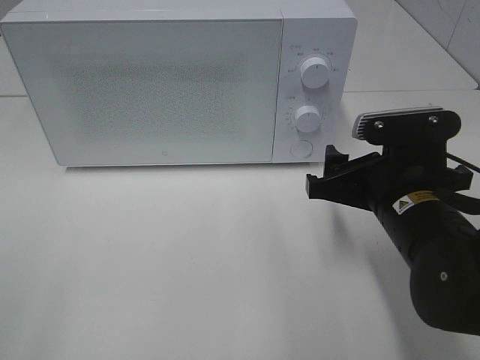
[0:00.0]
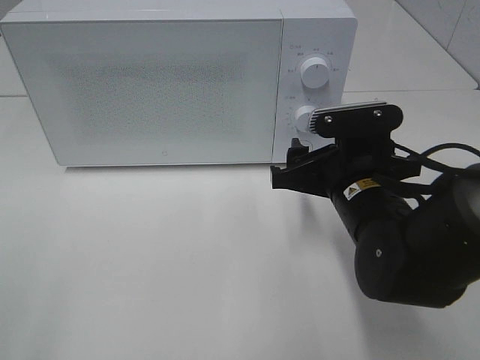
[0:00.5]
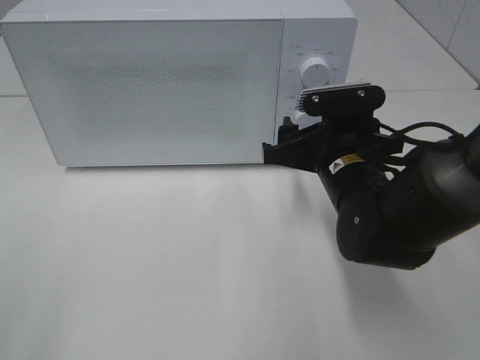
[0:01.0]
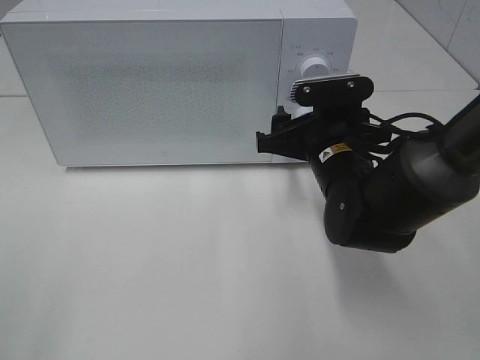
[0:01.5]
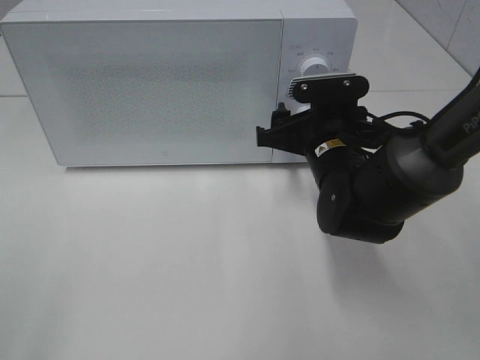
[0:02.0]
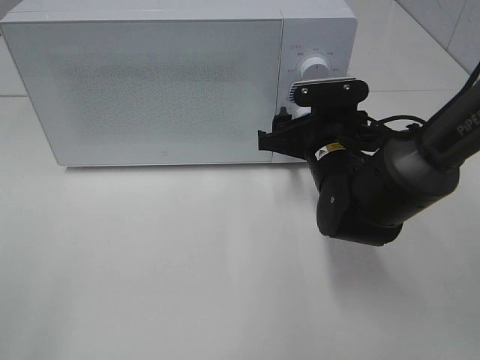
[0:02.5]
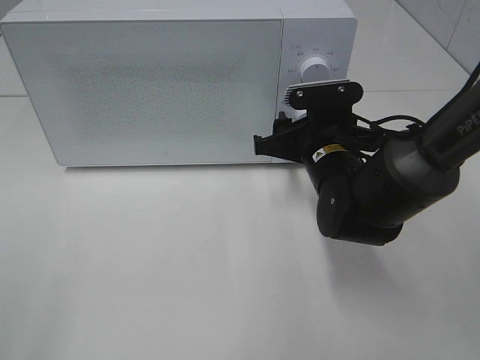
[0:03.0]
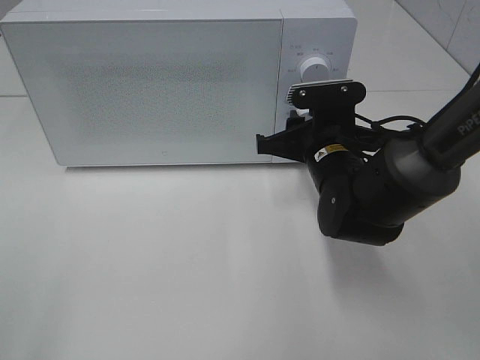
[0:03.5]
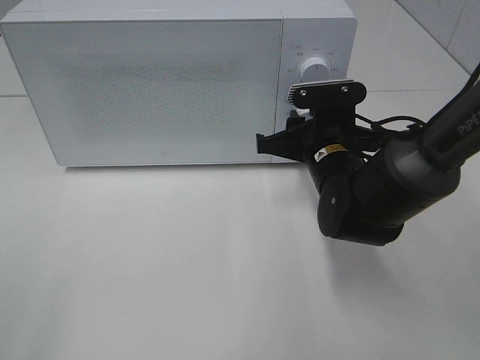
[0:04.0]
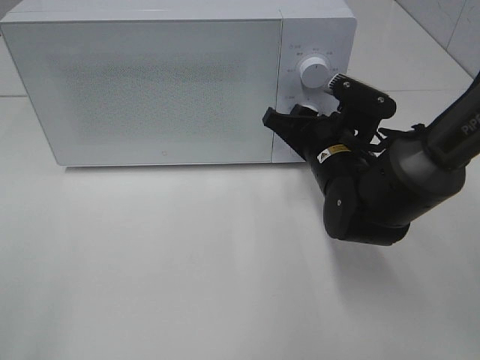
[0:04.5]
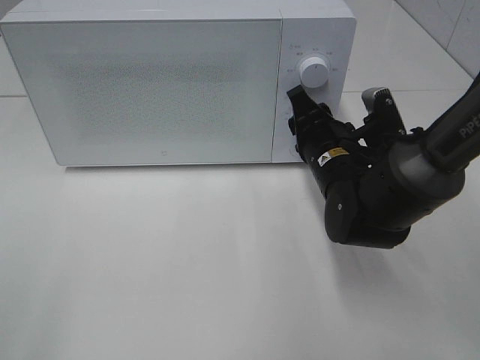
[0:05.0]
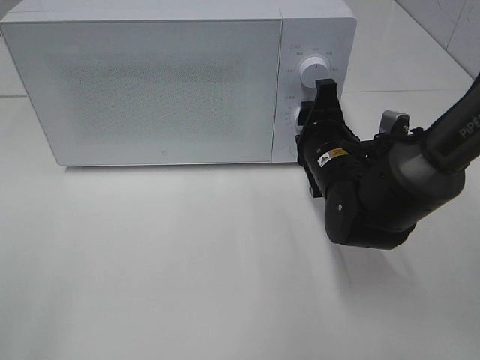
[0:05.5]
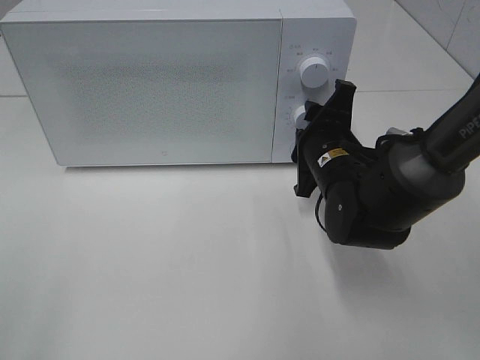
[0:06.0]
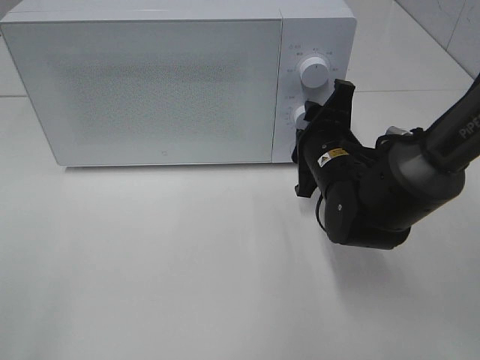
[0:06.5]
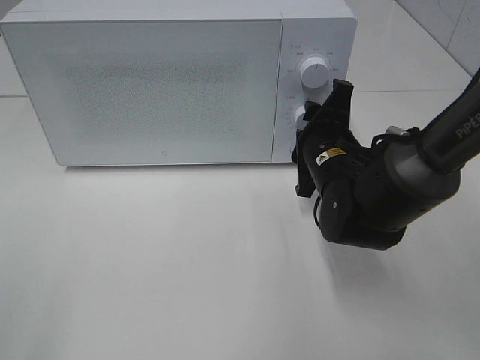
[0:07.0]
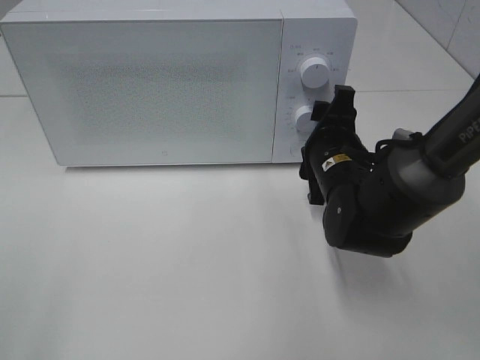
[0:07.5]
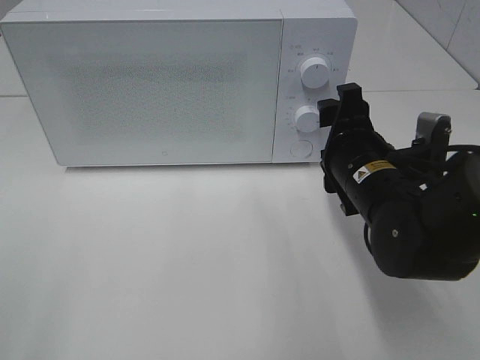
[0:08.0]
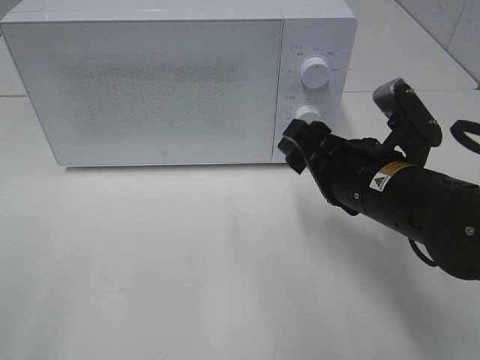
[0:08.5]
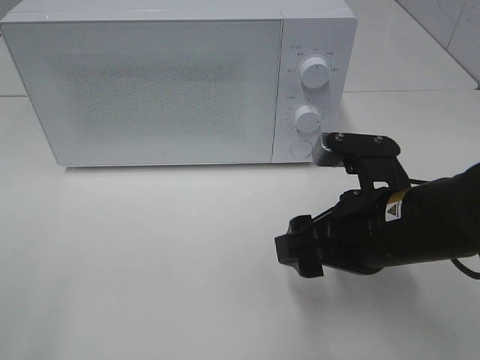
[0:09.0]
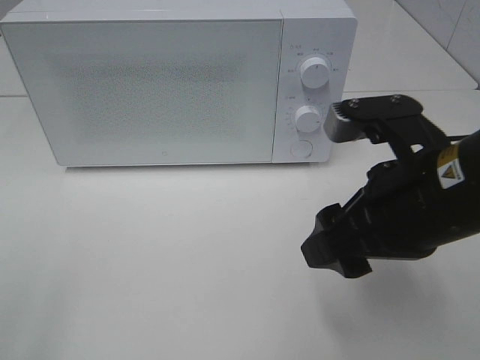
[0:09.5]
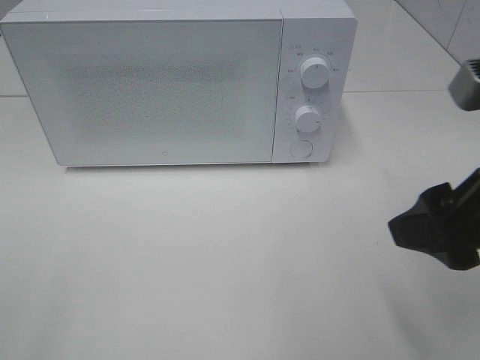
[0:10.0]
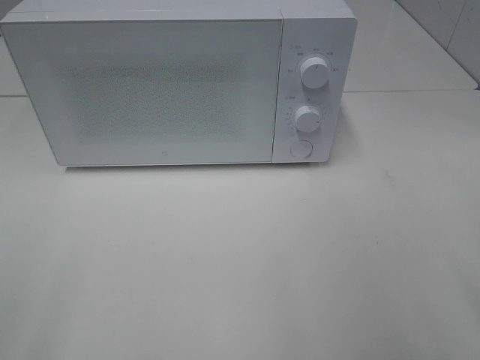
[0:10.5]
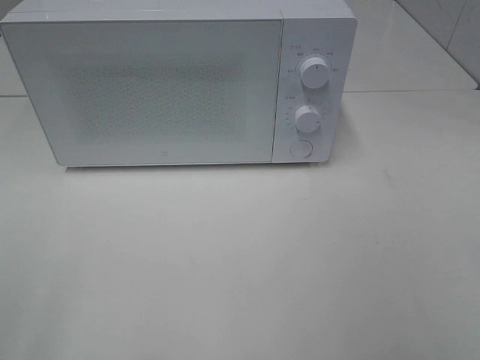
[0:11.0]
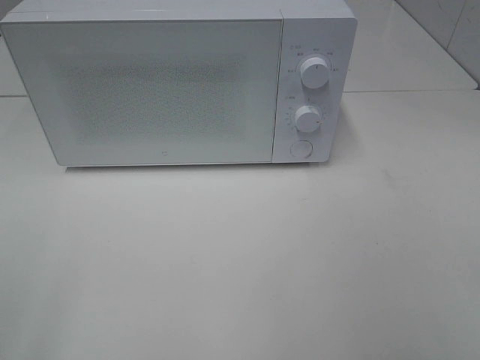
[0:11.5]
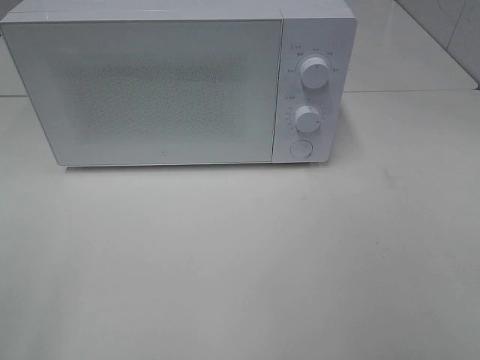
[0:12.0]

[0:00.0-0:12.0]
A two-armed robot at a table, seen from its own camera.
Task of the whole recording: Heat the burger.
Step, 0.0 to 7.5 s: Right hand: twist timer button.
0.0 to 2.0 s: The right gripper goes some 10 cm forward.
2.0 to 4.0 s: The right gripper closes.
6.0 to 8.0 s: The right gripper heads backward, covering approximately 5 cm.
8.0 to 10.0 s: The right gripper shifts approximately 20 cm upward, backward and to the right.
10.0 to 12.0 s: The right gripper shifts roughly 15 cm backward and to the right.

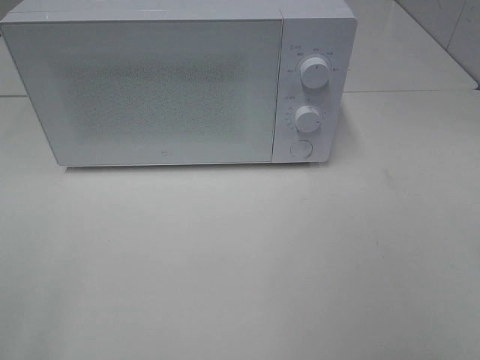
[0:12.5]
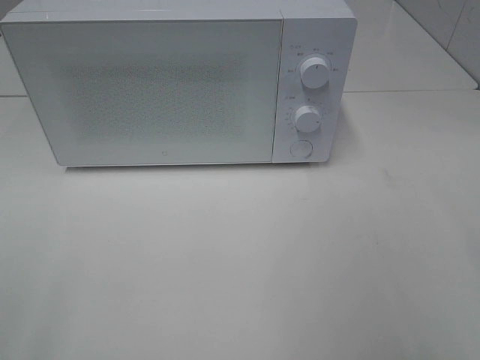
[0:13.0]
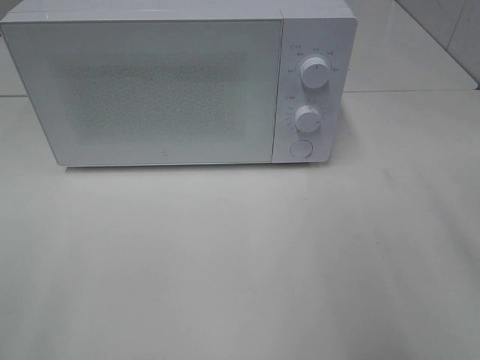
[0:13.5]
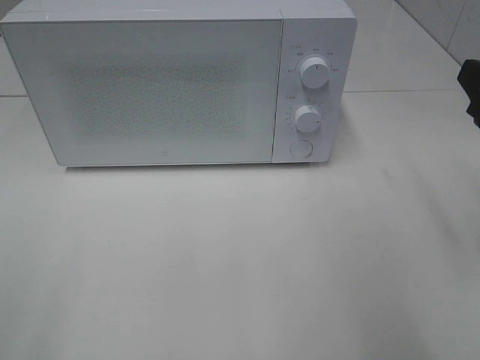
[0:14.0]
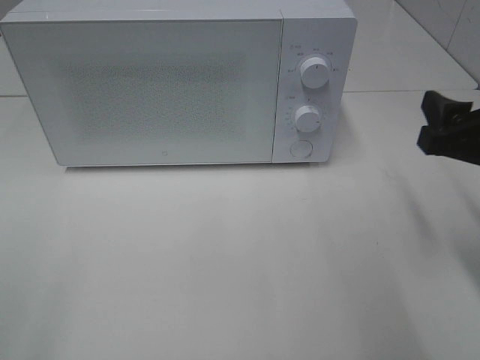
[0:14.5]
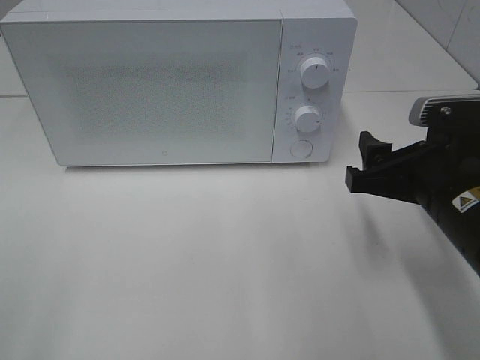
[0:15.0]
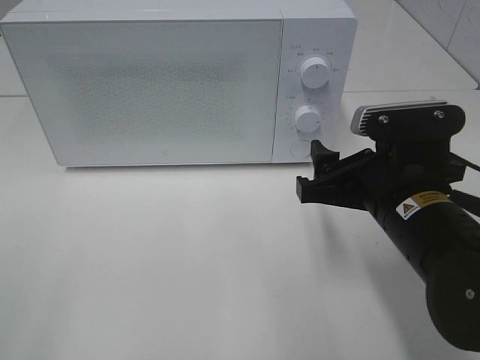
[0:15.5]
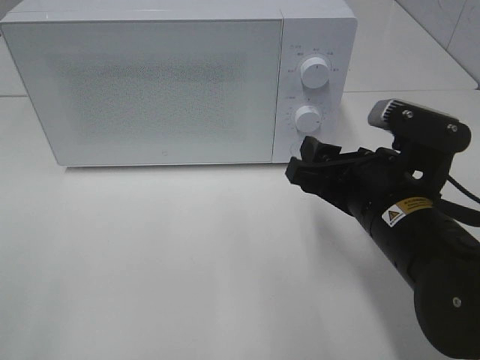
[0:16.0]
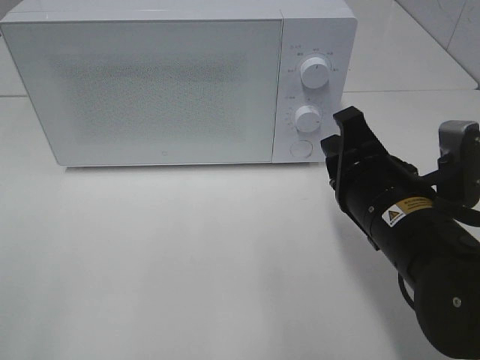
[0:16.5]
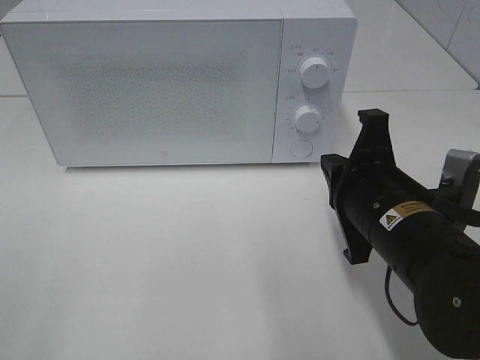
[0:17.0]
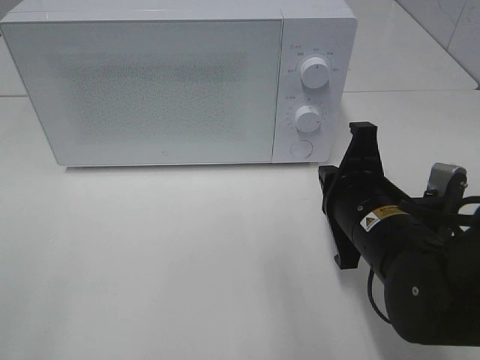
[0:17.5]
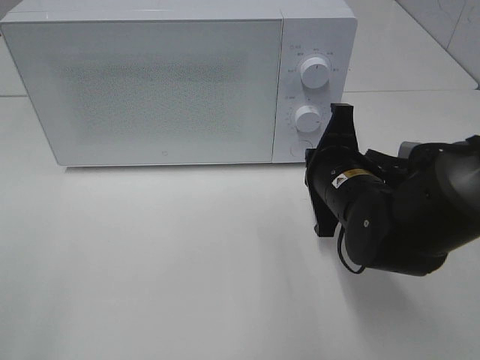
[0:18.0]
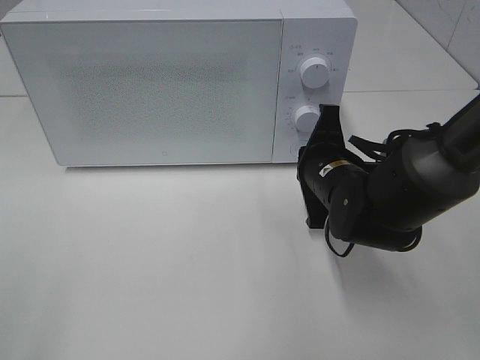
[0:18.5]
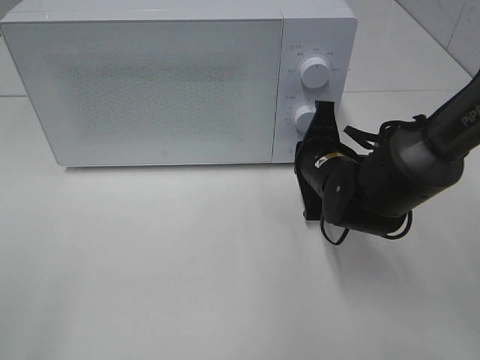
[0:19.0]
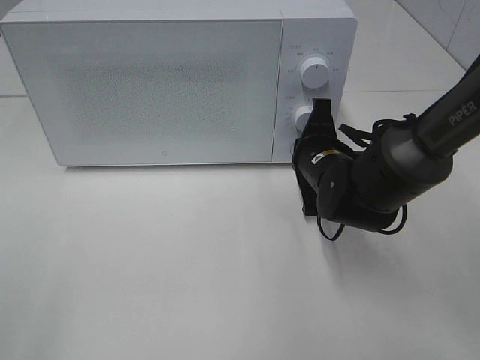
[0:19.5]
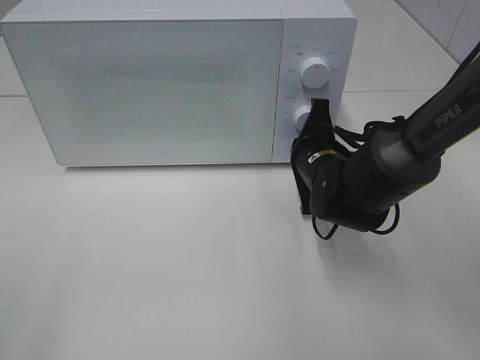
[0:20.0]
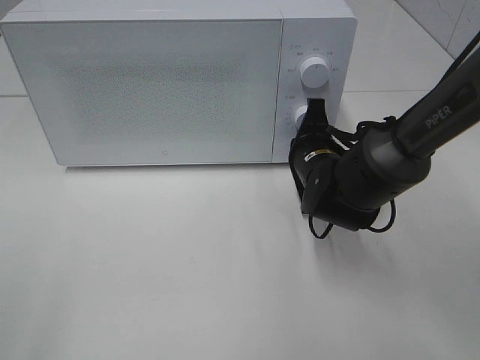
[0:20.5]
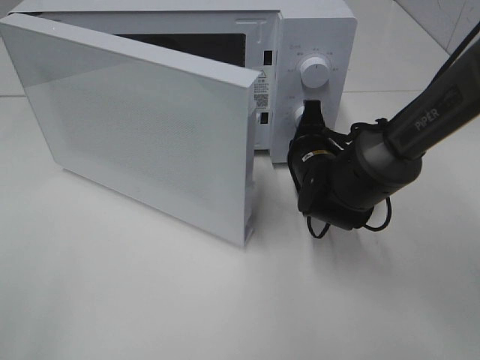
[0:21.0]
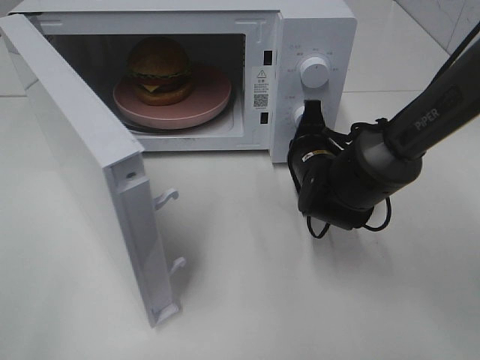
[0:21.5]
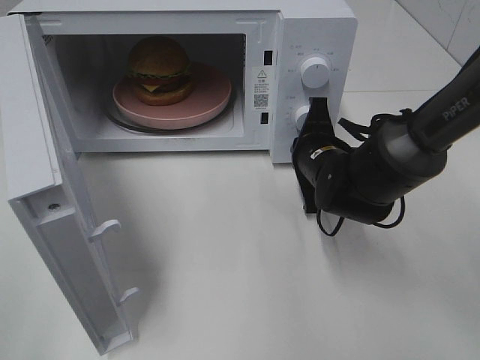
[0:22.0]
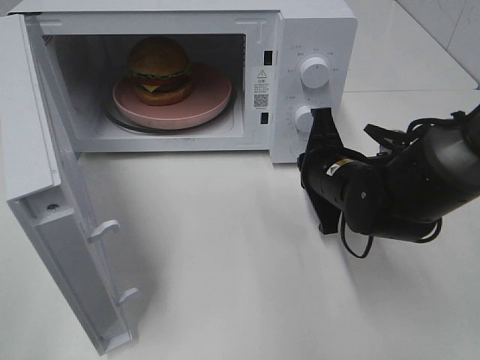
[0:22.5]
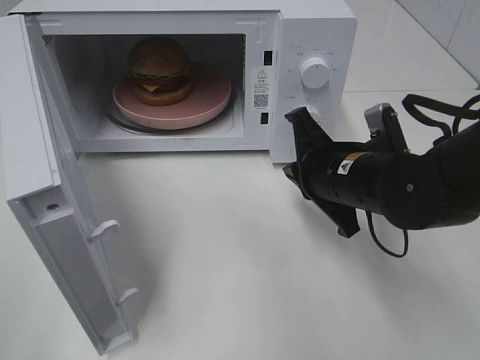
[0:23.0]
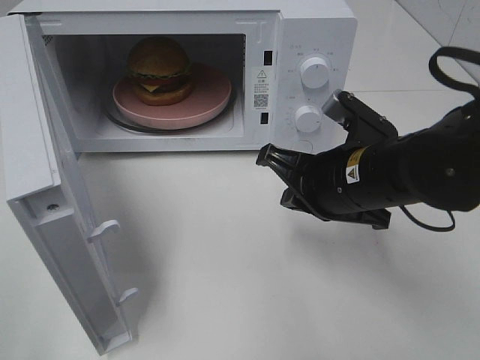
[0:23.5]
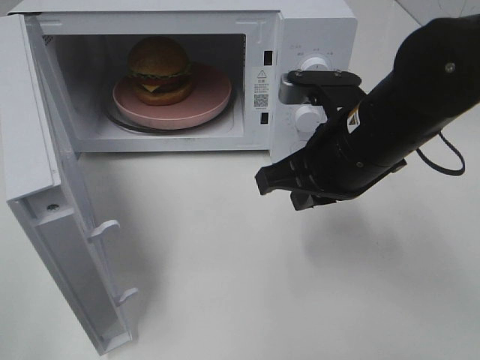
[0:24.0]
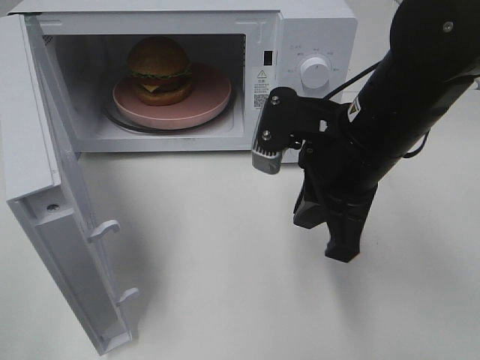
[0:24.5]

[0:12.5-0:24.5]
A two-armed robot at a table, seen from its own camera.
Task of the whole recording: Heat the burger.
Step, 12.5 to 22.0 s: Right hand: press the switch.
12.5 to 14.5 s: The right gripper heads forward and downward, covering roughly 20 cm.
14.5 to 16.5 s: The right gripper goes approximately 10 cm to the left, and closes its fingers.
16.5 to 18.5 s: The right gripper moves forward and downward, about 10 cm.
18.5 to 20.5 s: There are only small adjustments of the grippers.
22.5 to 24.5 s: The right gripper shifts approximately 10 cm upward and backward.

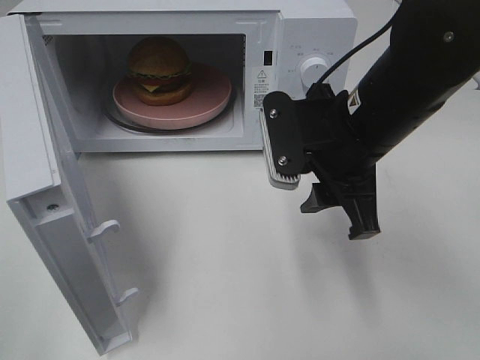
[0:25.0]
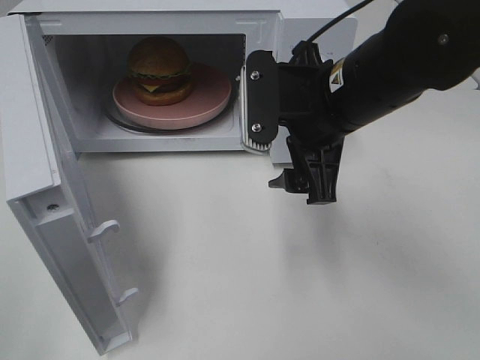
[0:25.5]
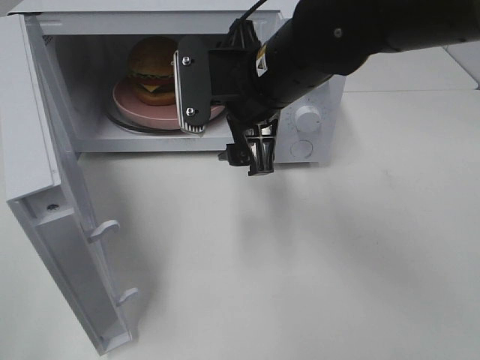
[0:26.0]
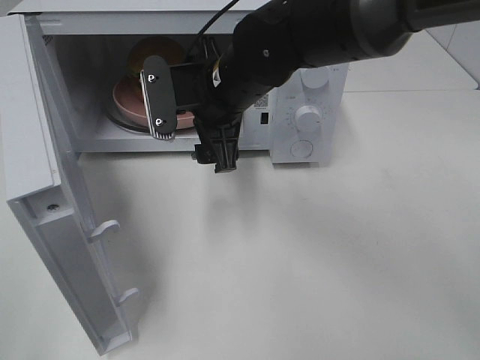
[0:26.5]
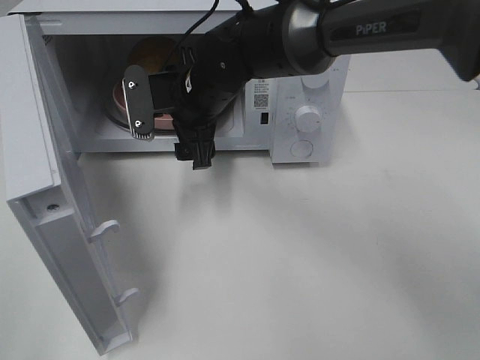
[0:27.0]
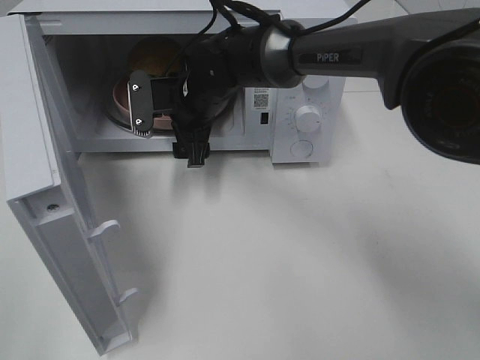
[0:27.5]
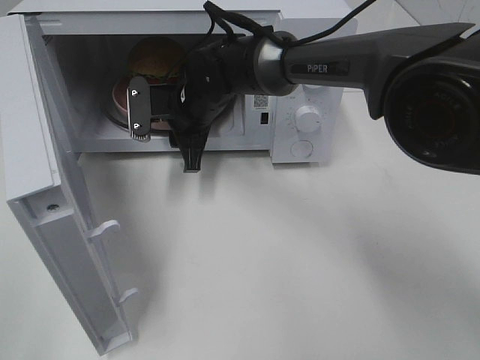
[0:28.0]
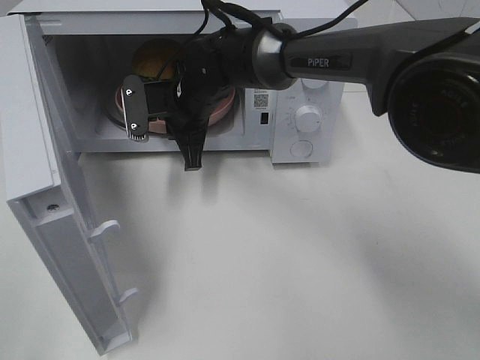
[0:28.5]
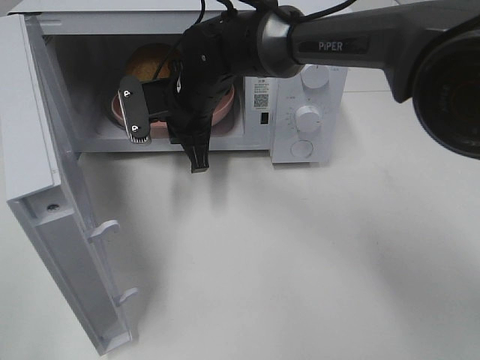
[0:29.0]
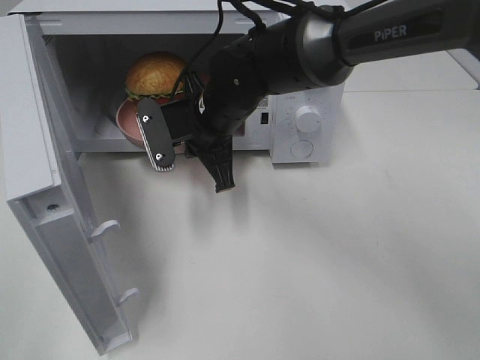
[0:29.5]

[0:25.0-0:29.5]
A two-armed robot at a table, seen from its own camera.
Task of the whole recording: Heat the burger.
Step, 25.0 to 28.5 s: Right hand: grab the plate with the hamburger.
25.0 to 27.0 s: The right gripper goes approximately 20 cm to the left and forward, and opens.
27.0 to 29.5 s: The right gripper closes.
